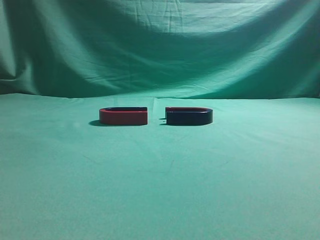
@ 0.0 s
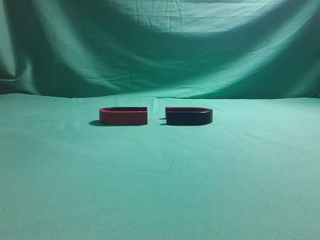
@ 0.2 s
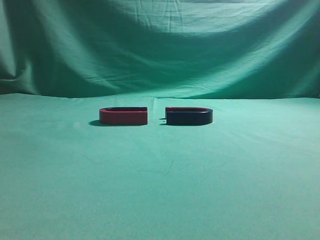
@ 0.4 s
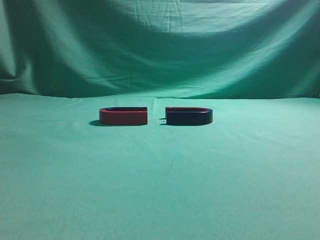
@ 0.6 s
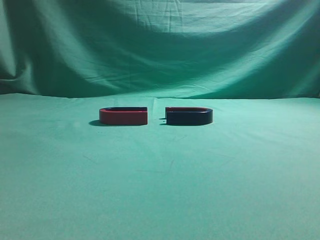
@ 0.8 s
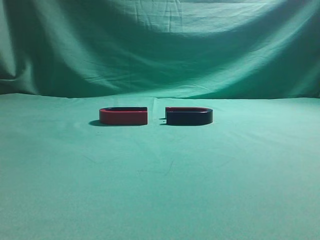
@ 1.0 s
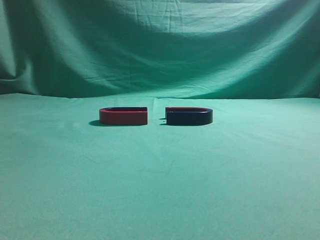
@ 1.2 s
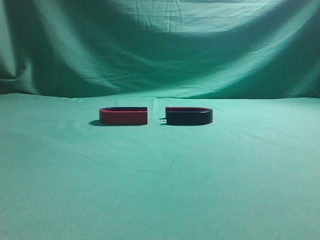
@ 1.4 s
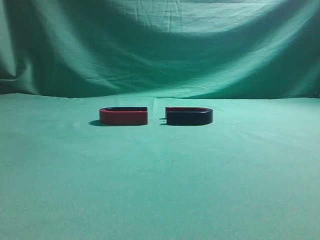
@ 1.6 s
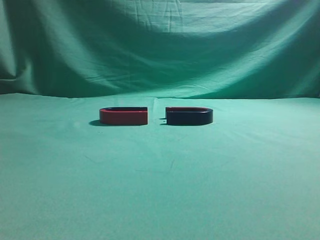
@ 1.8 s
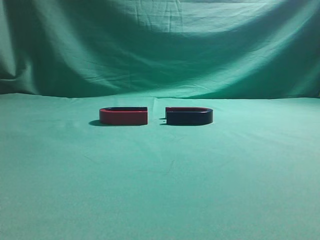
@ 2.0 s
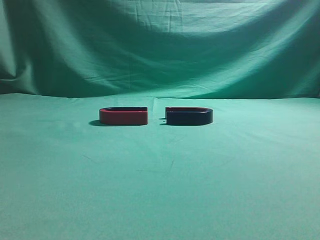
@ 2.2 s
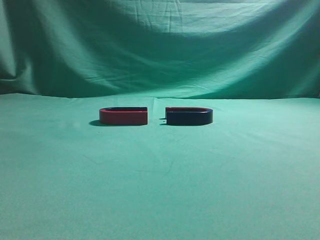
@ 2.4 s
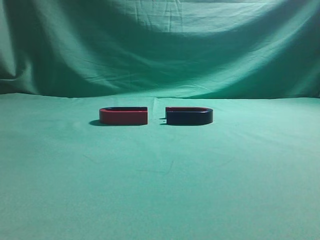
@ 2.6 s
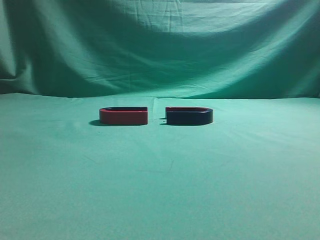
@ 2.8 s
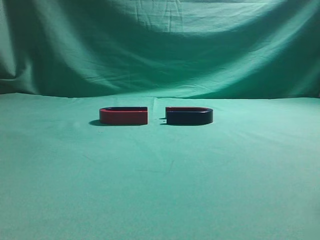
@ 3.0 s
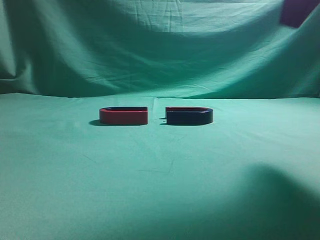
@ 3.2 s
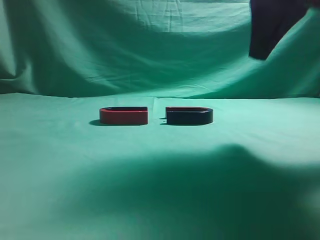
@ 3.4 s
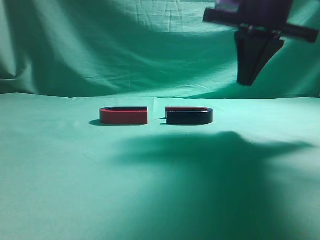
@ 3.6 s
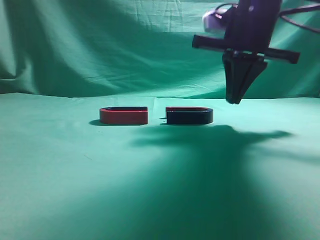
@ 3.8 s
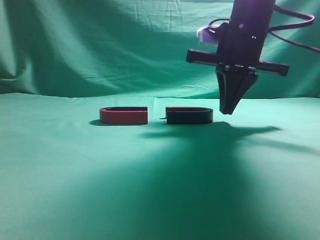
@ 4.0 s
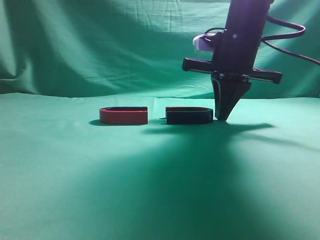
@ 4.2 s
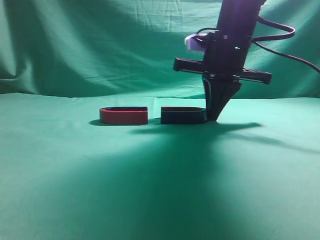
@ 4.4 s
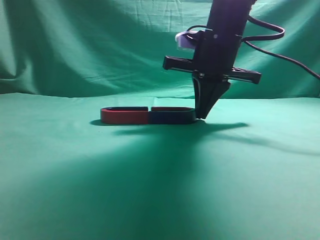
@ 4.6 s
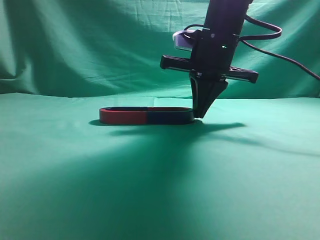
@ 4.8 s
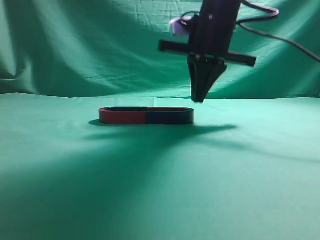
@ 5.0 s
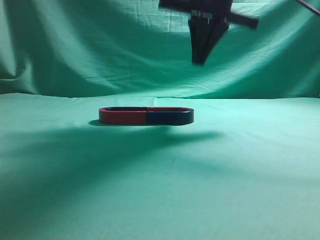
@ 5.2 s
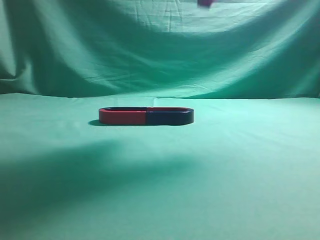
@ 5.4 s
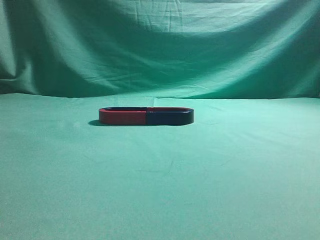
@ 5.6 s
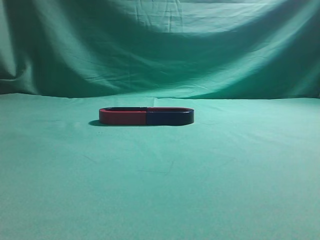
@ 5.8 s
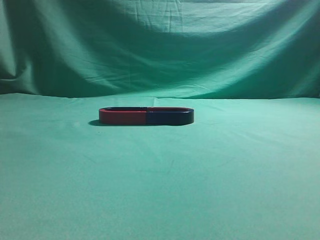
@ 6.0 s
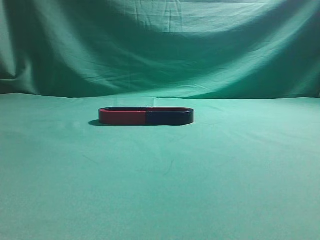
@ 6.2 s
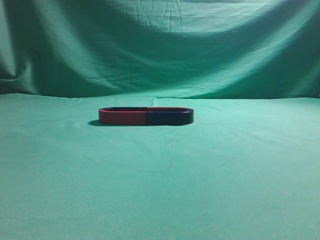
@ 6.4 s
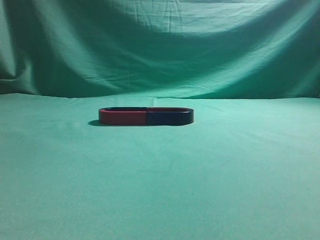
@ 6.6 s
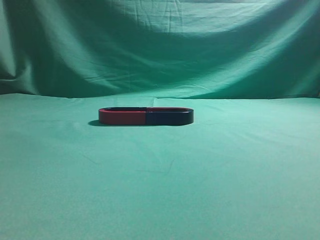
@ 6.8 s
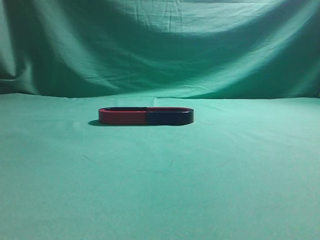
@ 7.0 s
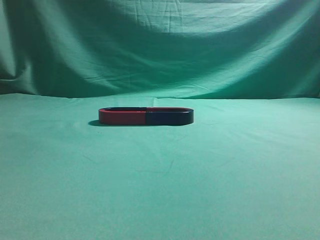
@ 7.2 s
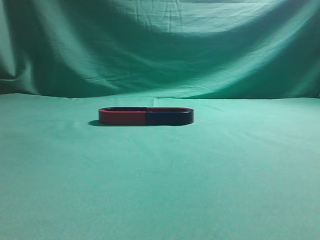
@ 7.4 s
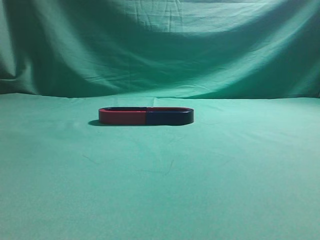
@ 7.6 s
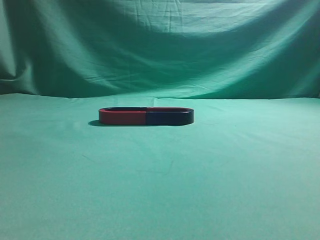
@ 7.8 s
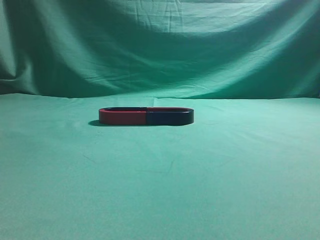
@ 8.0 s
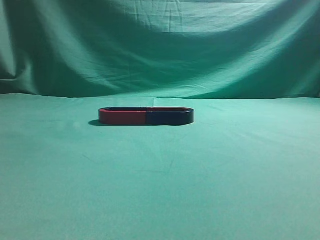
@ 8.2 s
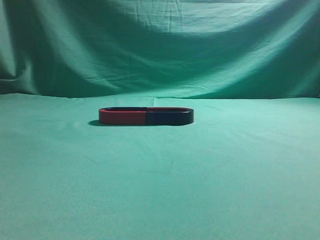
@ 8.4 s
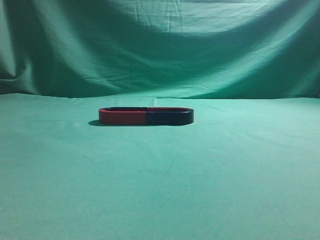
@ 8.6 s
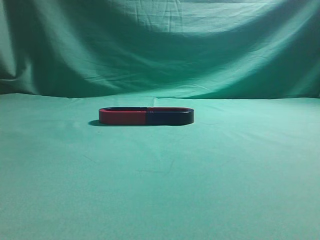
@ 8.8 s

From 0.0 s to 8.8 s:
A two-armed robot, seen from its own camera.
Task of the whole recording: push the magnet on the table from its original position to another position.
Step, from 0.0 s to 4.8 s: Push the magnet on the right to connect the magnet on the left.
From 3.0 s to 4.4 s: The right gripper heads forward, downward and to the left, covering some 25 cm.
From 4.4 s to 5.8 s: The right gripper moves upward and backward, about 30 cm.
